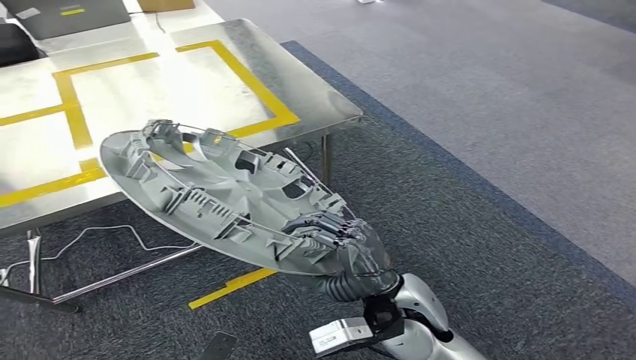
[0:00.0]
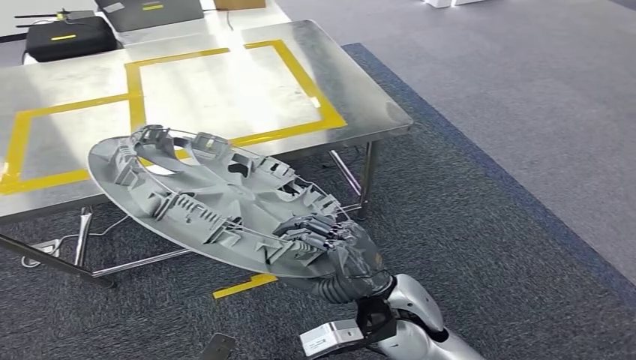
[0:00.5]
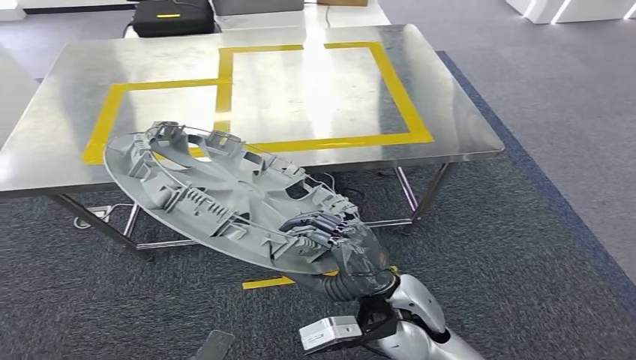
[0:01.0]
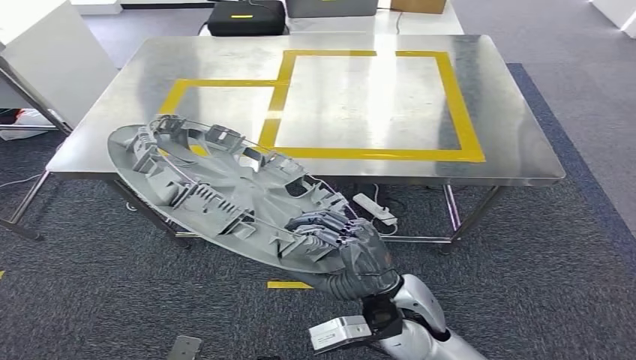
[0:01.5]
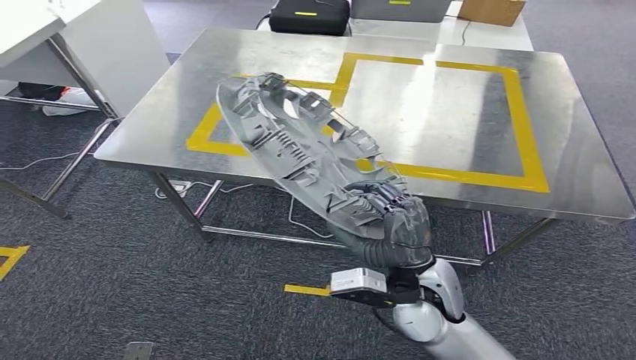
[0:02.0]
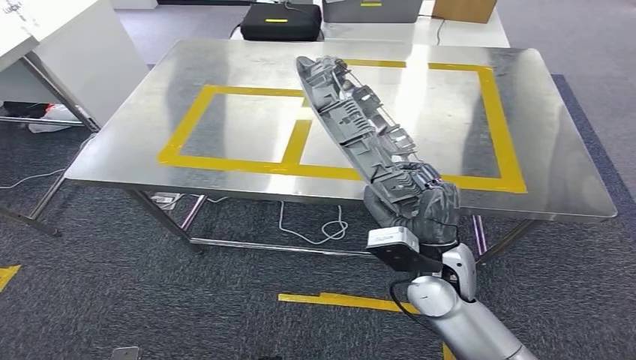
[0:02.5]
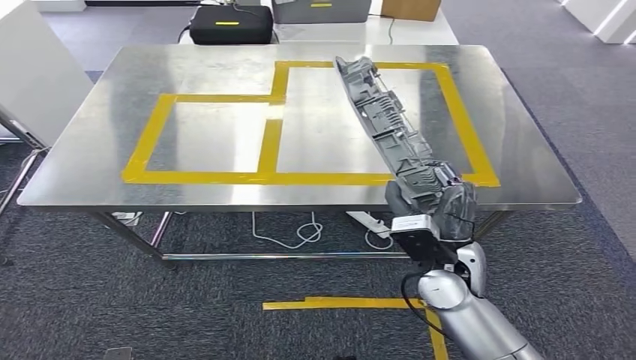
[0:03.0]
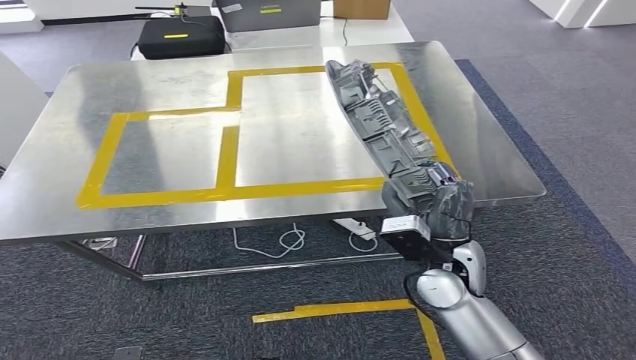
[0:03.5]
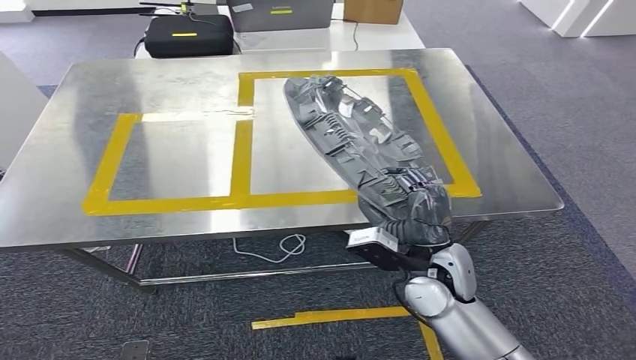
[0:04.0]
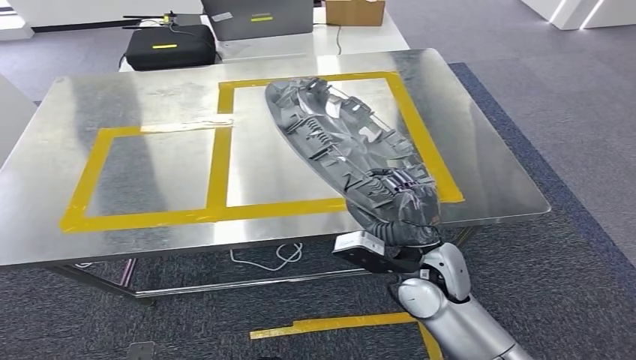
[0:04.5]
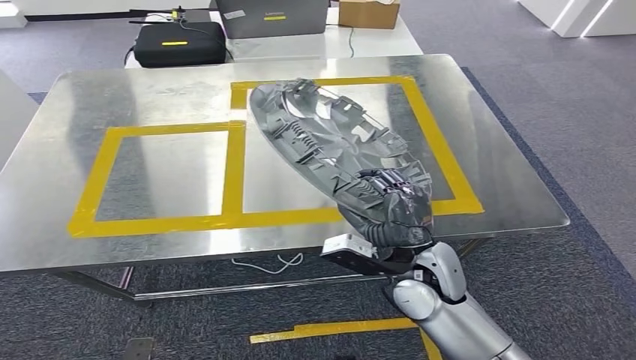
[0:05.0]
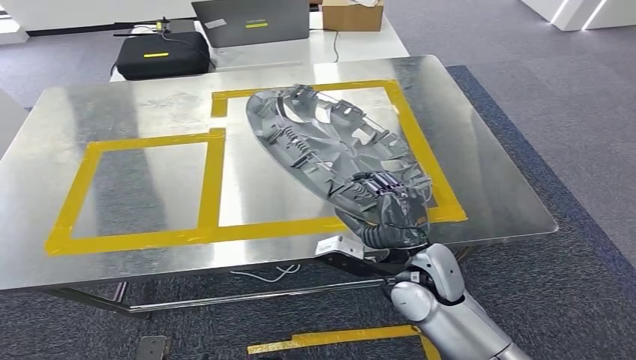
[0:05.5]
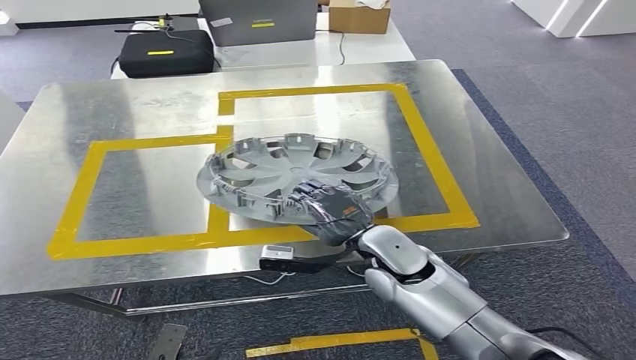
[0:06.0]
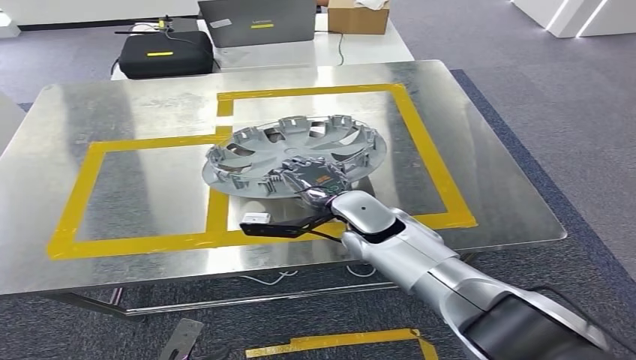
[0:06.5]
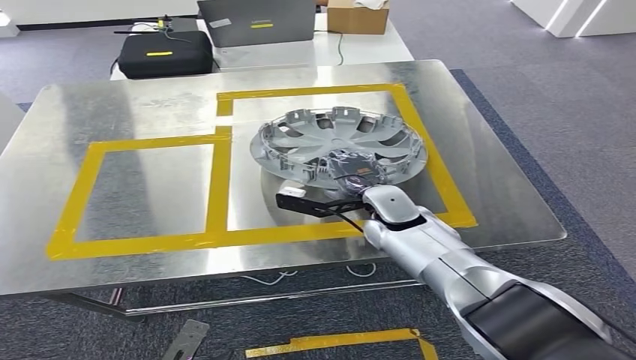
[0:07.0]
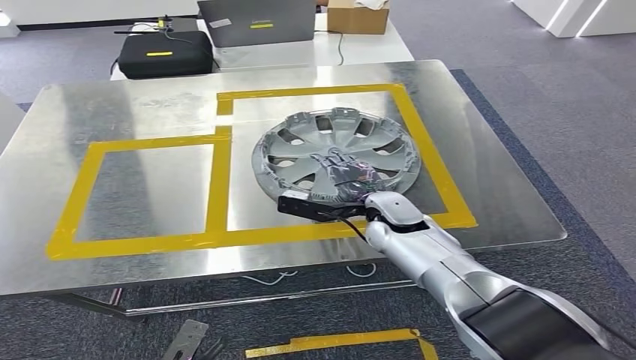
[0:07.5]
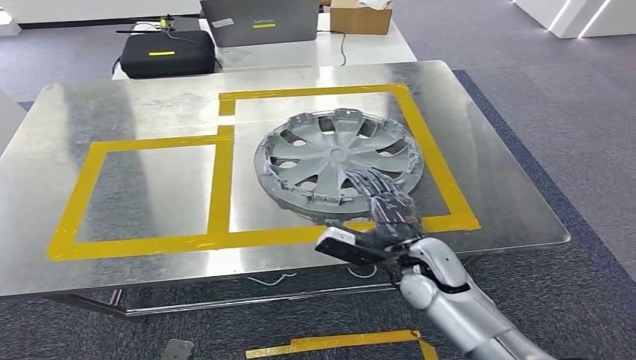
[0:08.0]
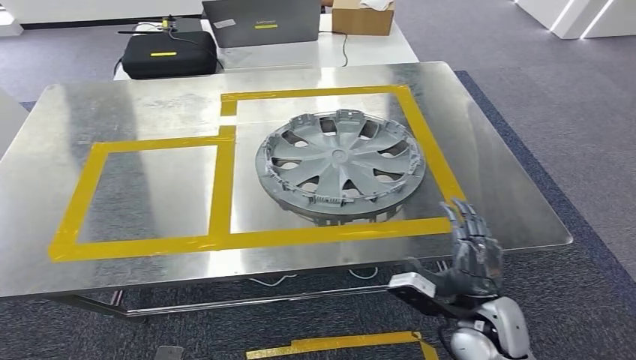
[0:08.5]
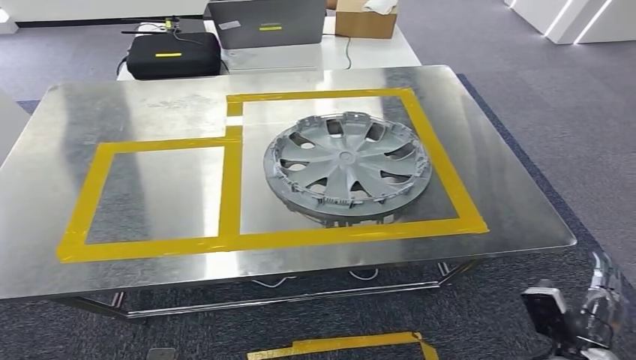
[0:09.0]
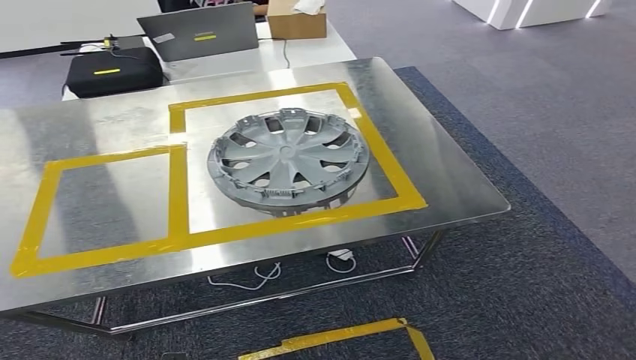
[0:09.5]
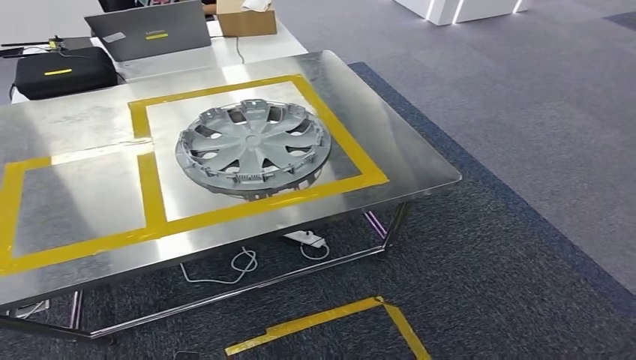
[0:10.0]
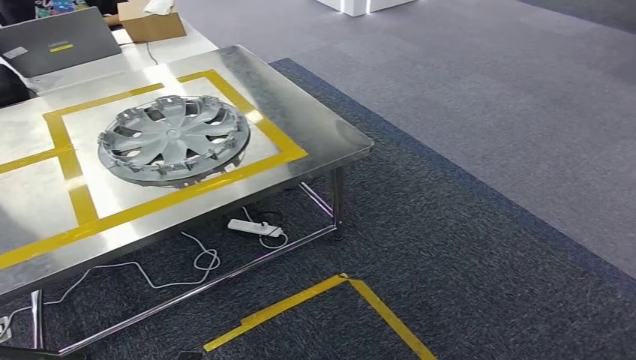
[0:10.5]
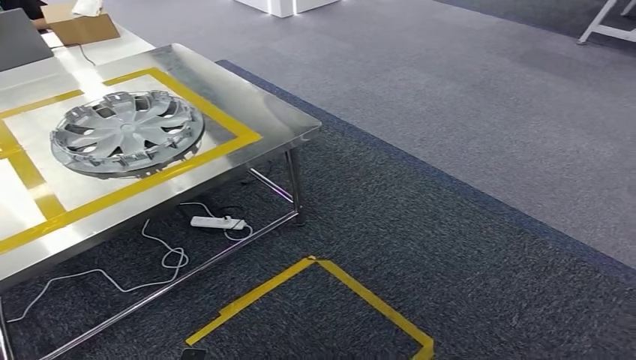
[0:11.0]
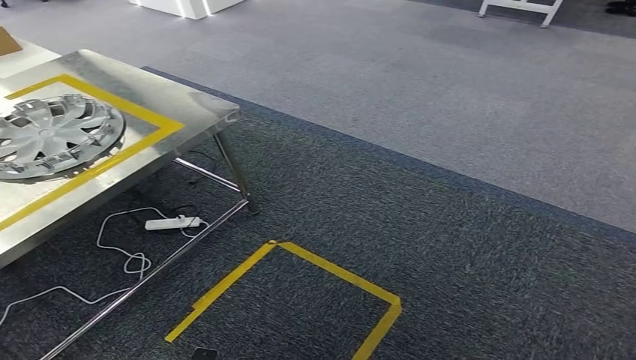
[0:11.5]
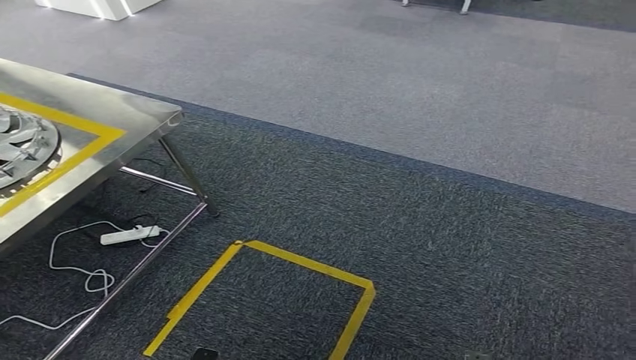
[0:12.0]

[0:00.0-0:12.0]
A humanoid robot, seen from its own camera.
Step, 0:01.5 to 0:07.5: Insert the small parts into the corresponding holes on the workbench.
0:06.0 to 0:08.0: The right hand goes approximately 5 cm to the right, and reaches about 10 cm forward, then returns.

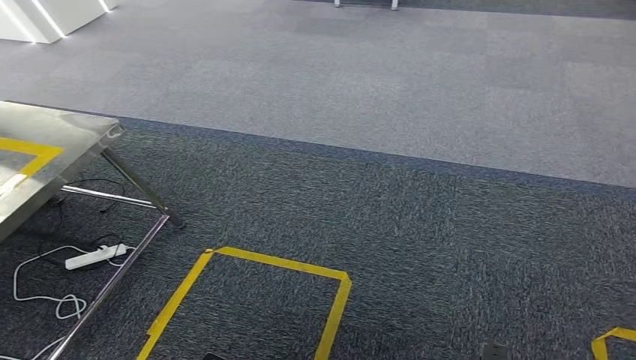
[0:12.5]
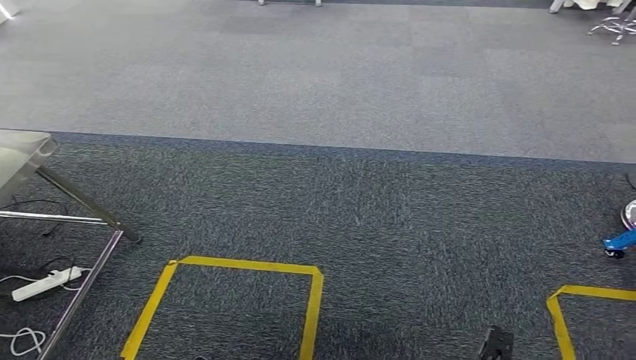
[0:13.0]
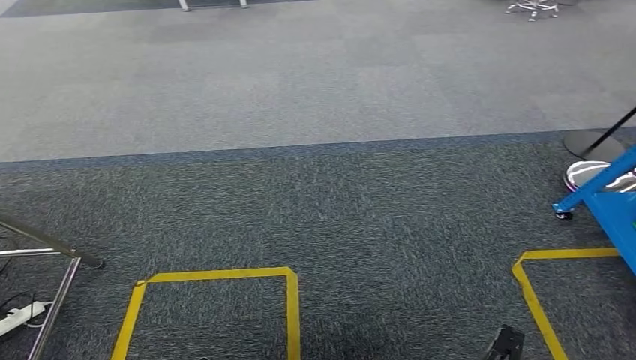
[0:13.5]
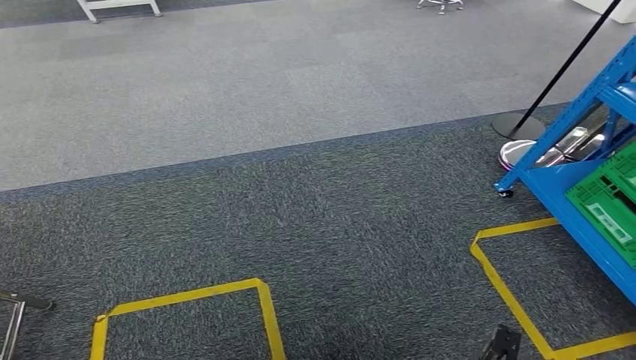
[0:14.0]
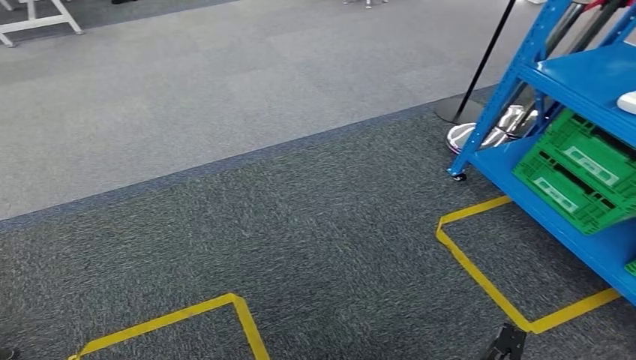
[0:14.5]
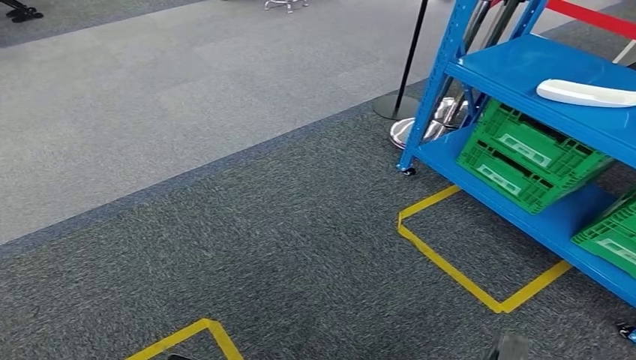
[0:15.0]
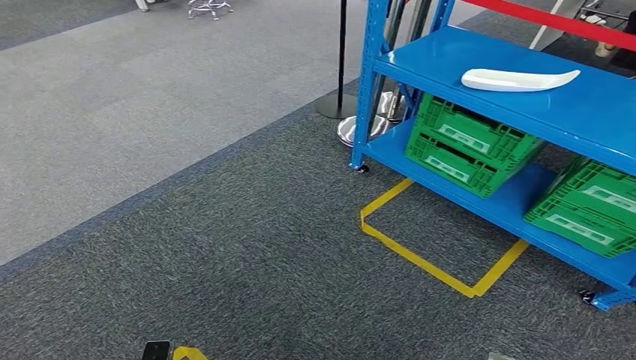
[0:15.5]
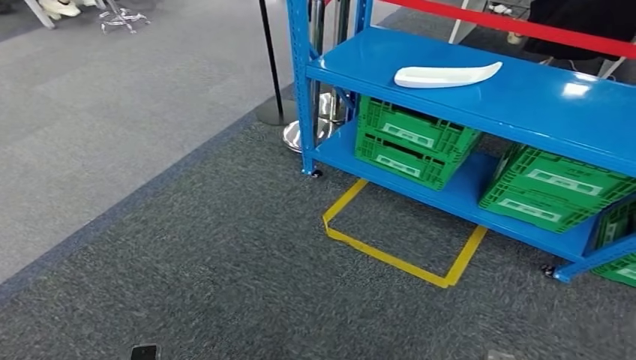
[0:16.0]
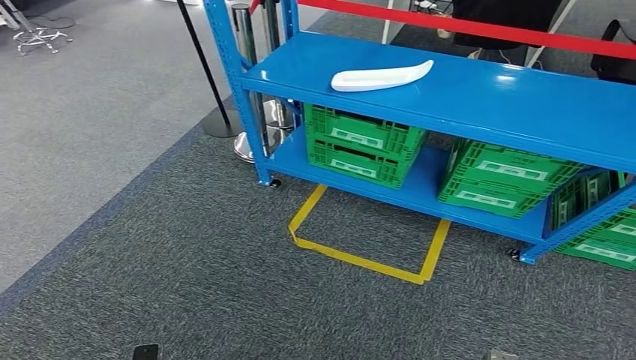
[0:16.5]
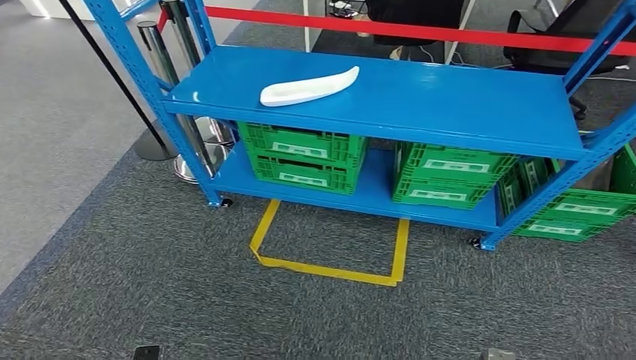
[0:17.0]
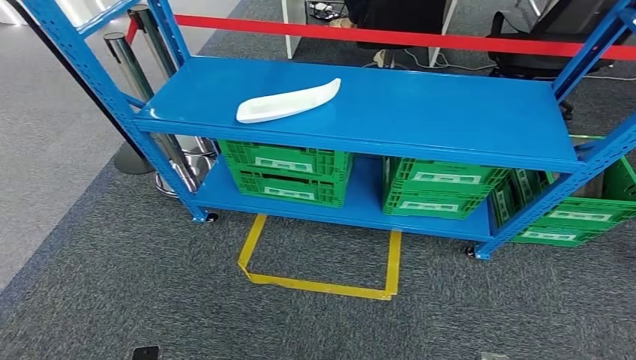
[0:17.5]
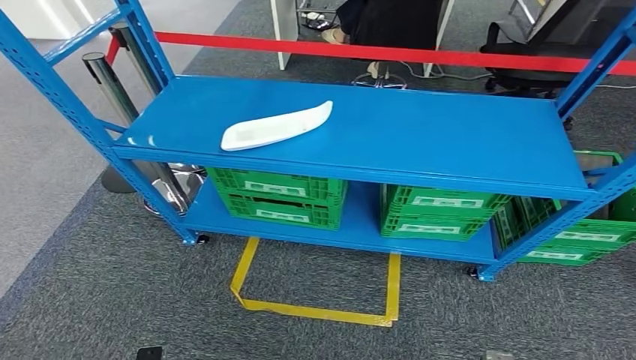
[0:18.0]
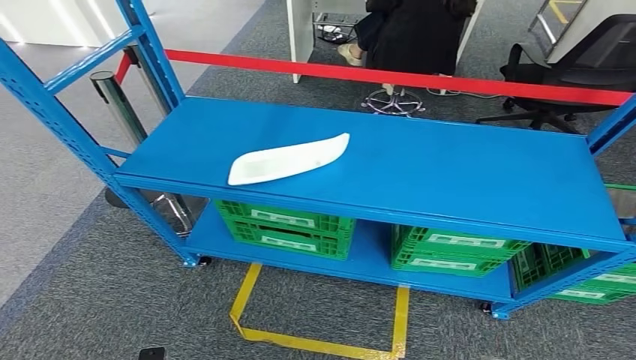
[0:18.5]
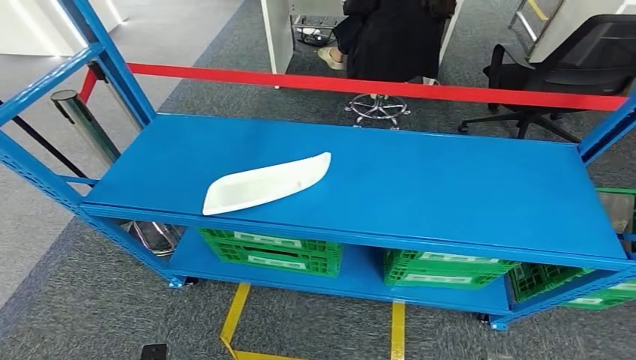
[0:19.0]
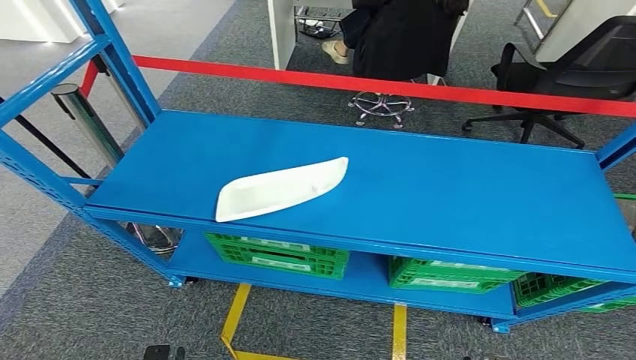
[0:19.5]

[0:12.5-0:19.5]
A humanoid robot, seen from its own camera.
Step, 0:12.5 to 0:19.5: Move to the initial position of the workbench.
